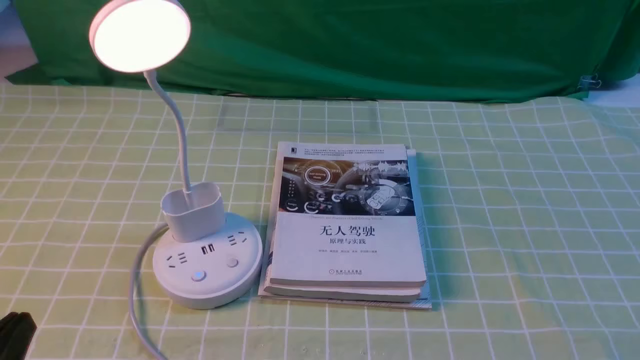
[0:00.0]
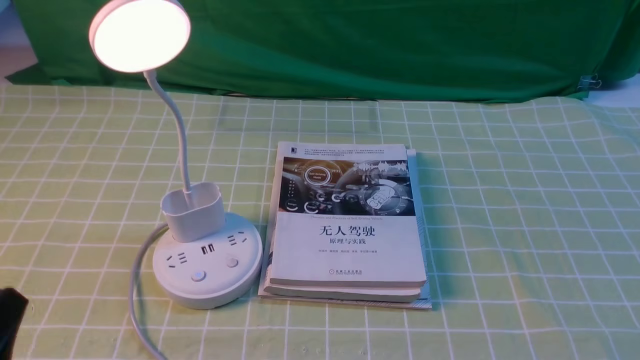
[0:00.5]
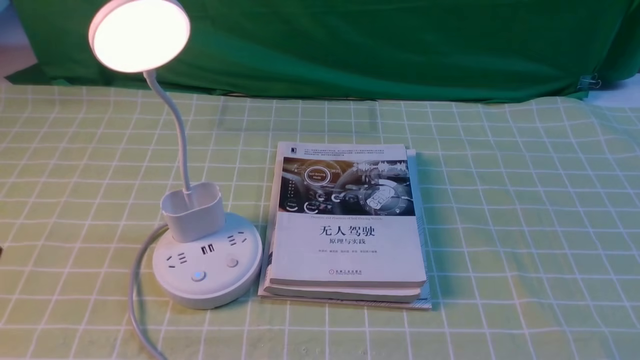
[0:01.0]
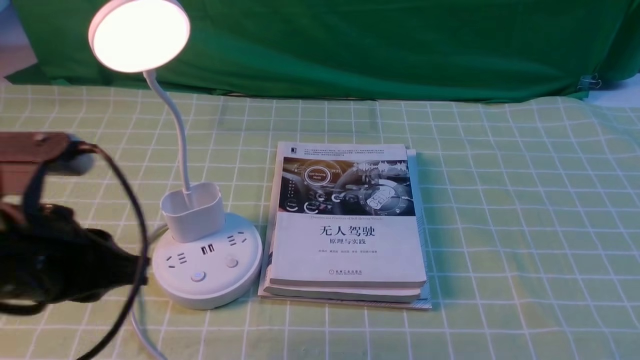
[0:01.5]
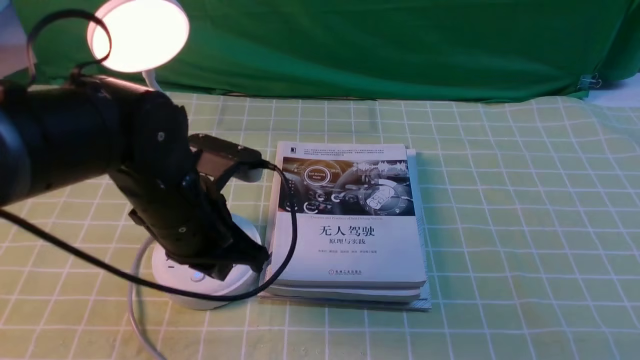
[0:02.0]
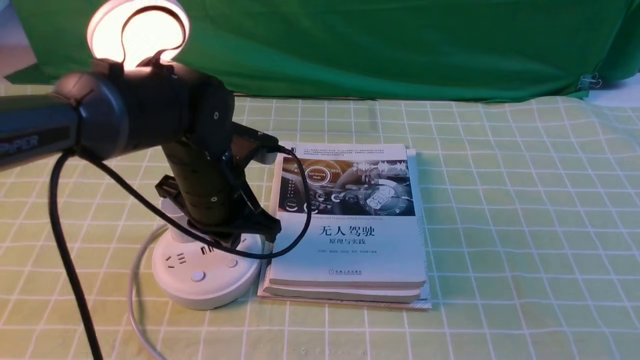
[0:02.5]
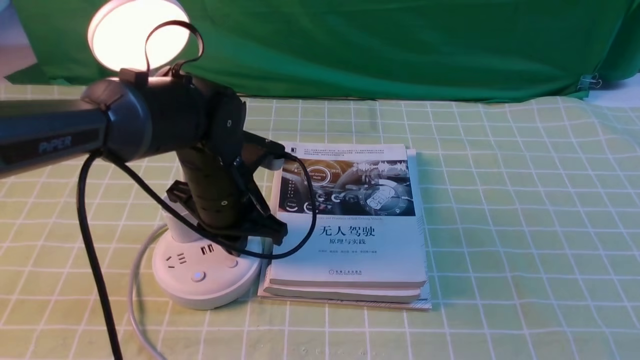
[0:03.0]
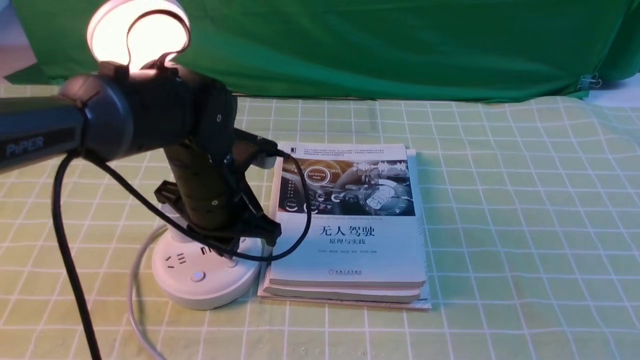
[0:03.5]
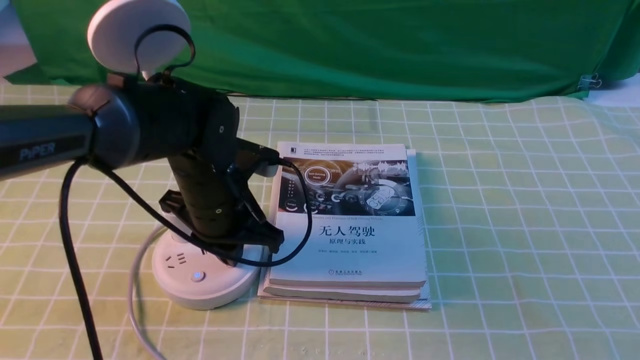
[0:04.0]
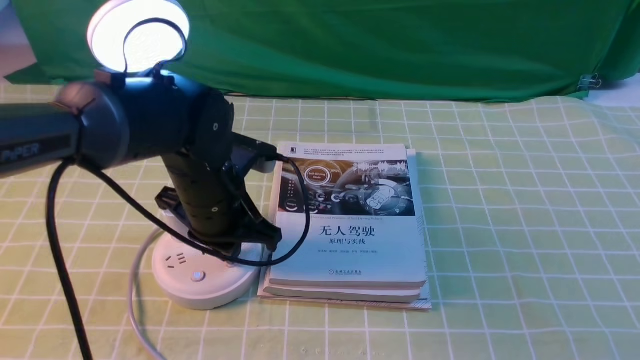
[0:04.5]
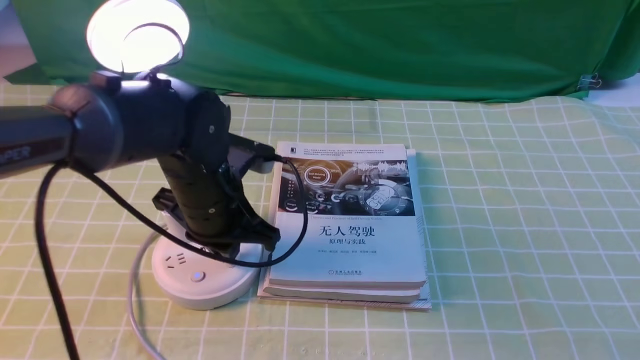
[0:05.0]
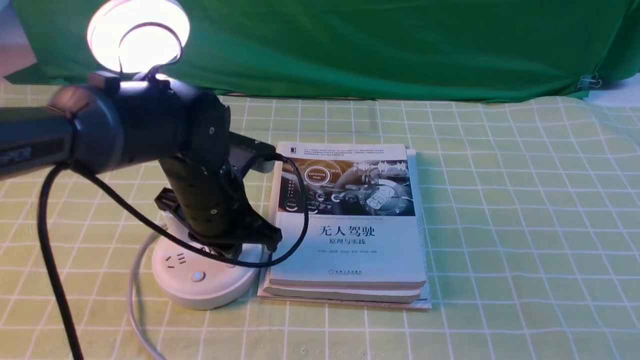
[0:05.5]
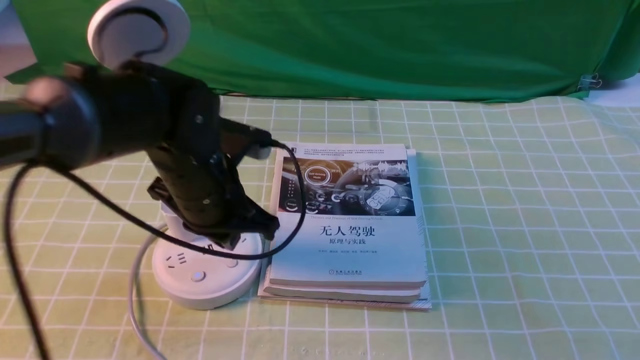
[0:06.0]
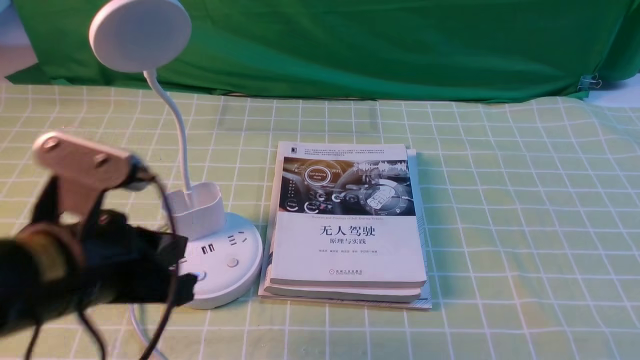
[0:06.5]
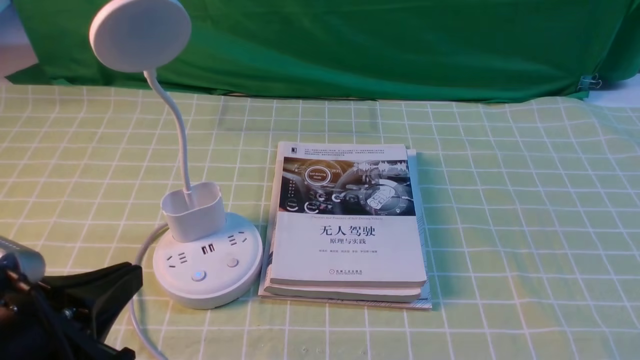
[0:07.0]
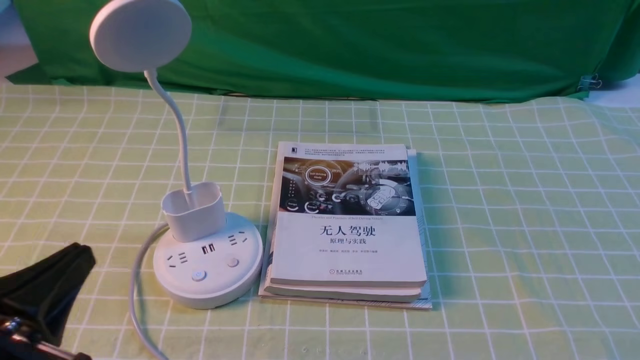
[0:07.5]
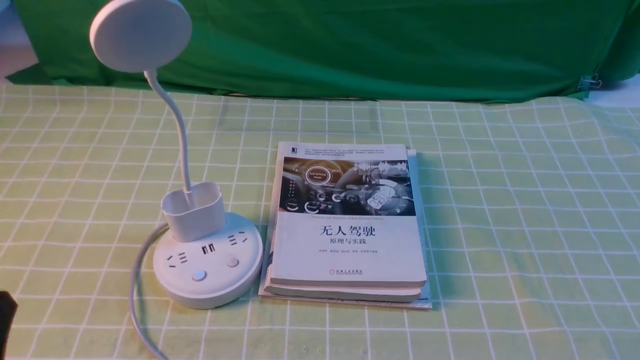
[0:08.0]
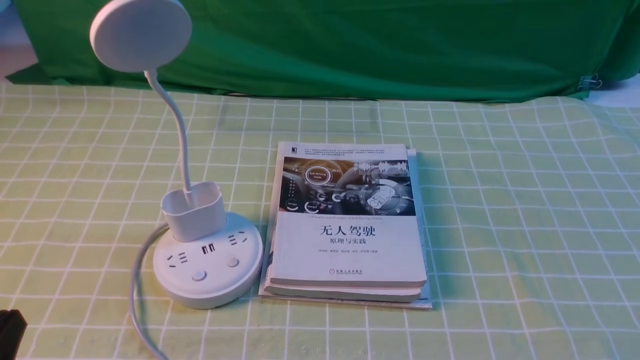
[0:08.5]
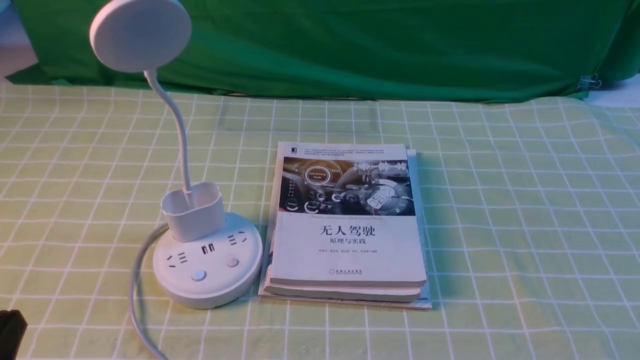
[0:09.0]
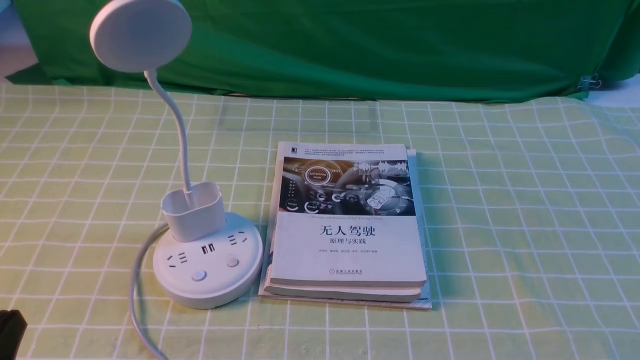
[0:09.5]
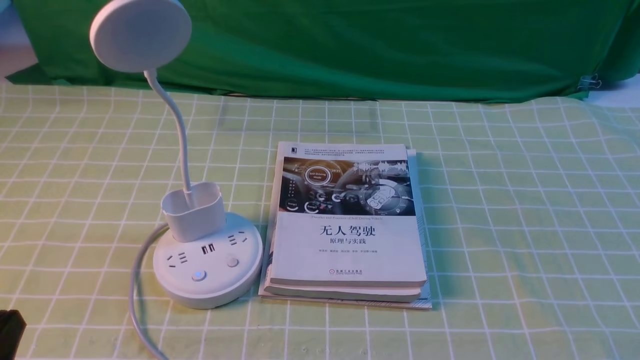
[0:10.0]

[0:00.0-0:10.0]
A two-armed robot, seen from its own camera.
Task of the whole recording: turn off the desk lamp on the green coffee tablecloth by hand.
Step, 0.0 to 6.0 s: use the left arm to press the button switch on the lamp holder.
2.0 to 4.0 s: The left gripper is displaced forward and downward by approximately 10 cm.
4.0 to 6.0 s: The grippers make only small movements.
6.0 to 8.0 s: The left gripper moves backward and to the left, approximately 30 cm, and closes.

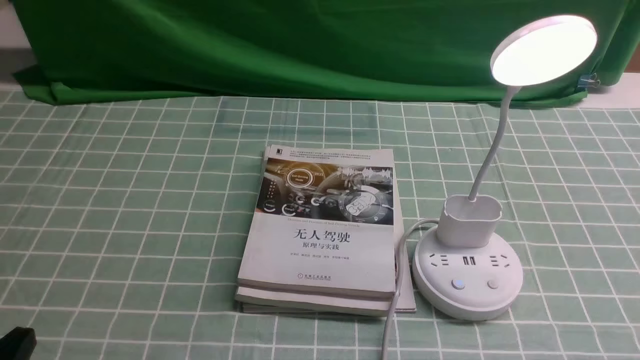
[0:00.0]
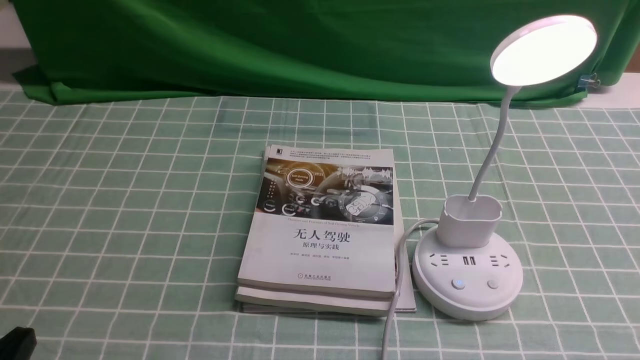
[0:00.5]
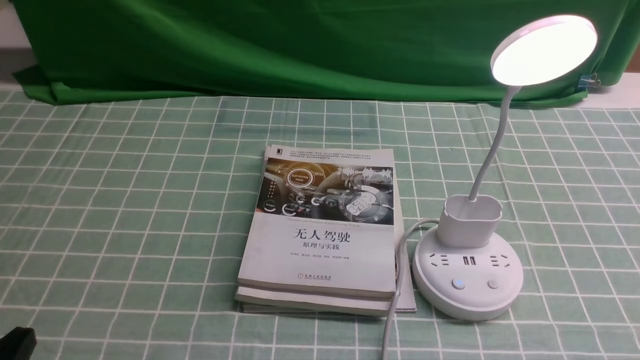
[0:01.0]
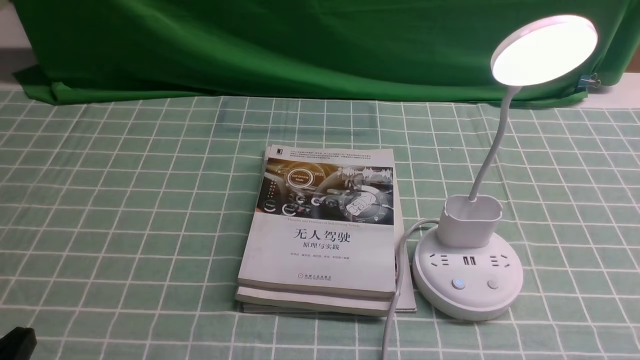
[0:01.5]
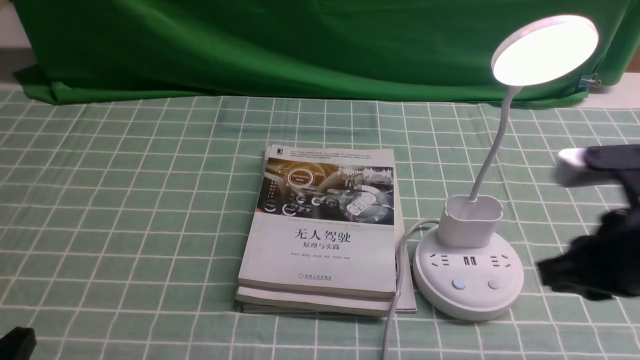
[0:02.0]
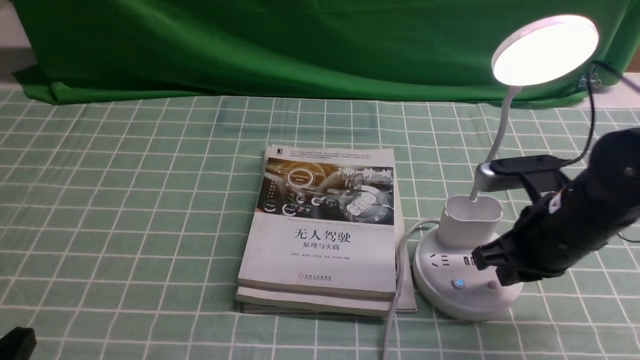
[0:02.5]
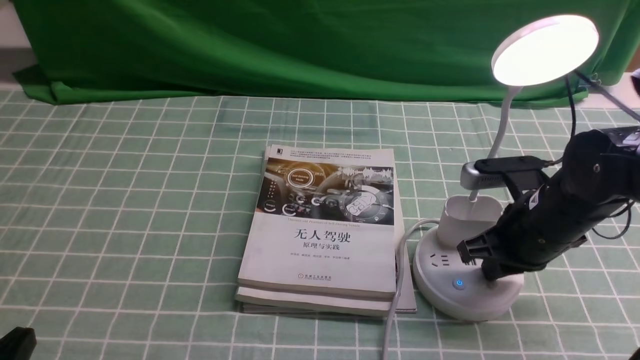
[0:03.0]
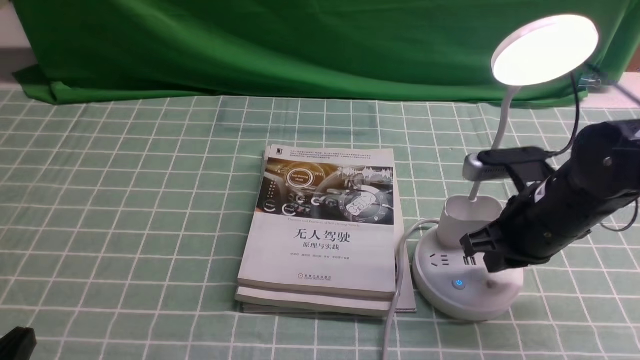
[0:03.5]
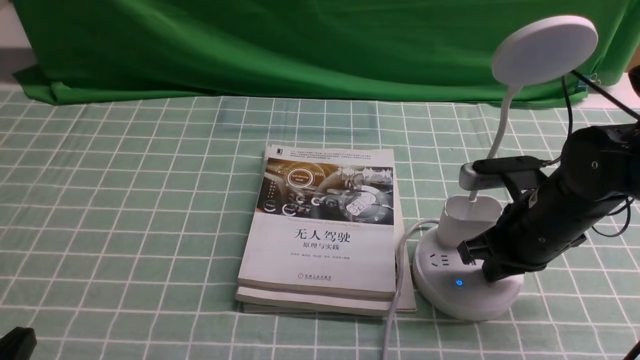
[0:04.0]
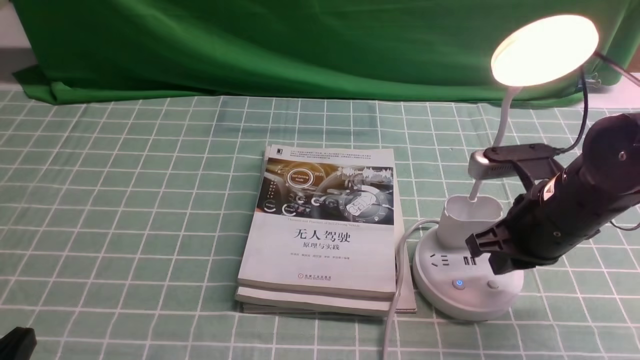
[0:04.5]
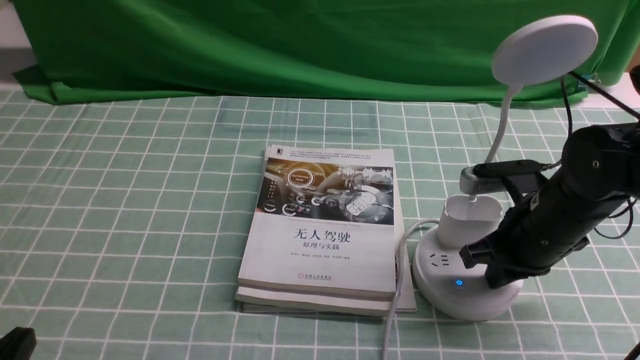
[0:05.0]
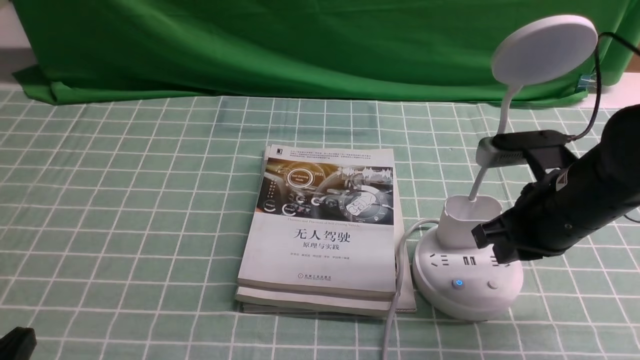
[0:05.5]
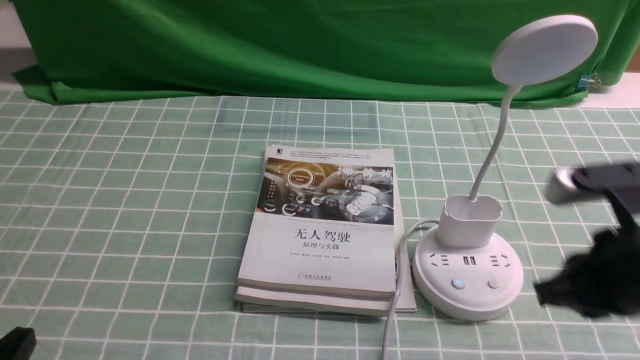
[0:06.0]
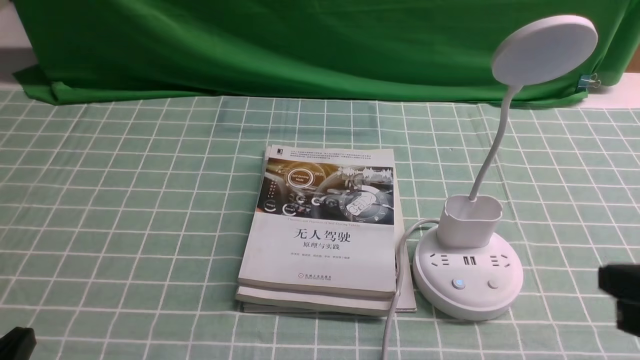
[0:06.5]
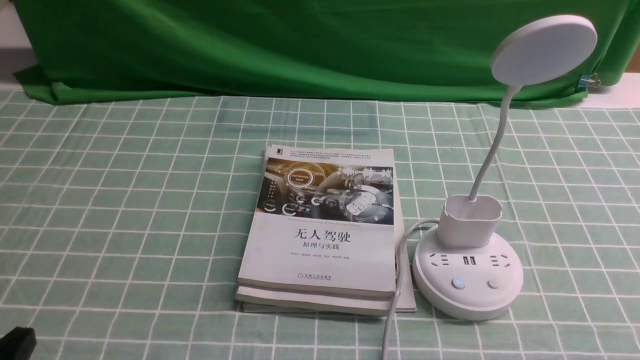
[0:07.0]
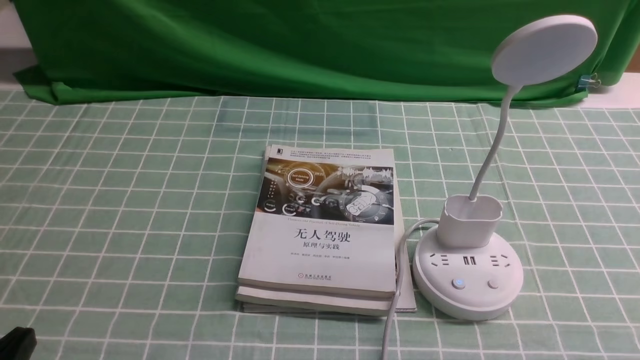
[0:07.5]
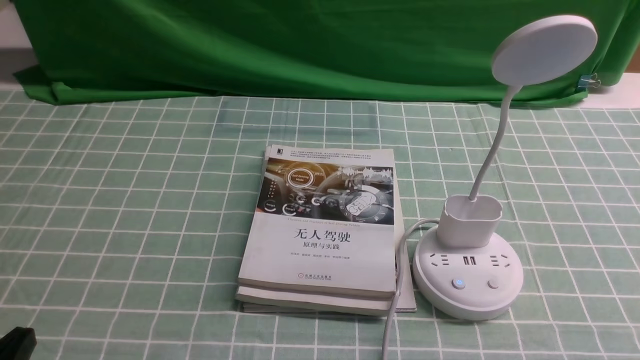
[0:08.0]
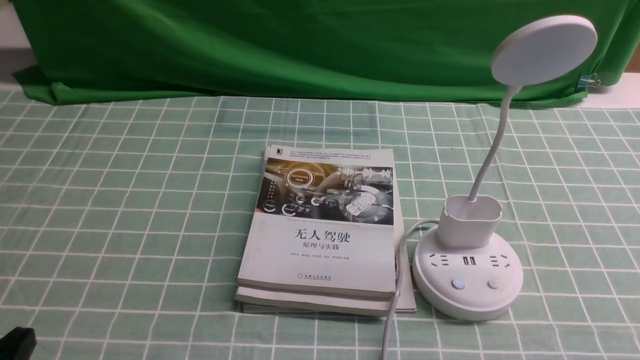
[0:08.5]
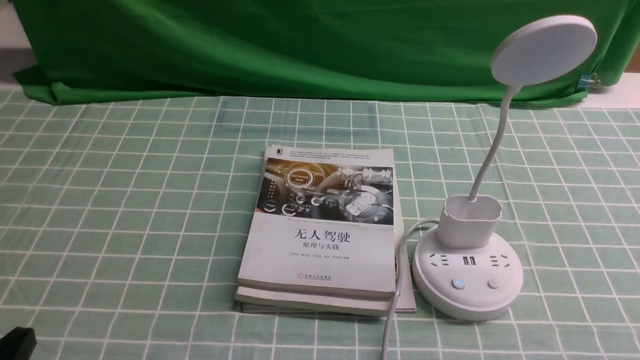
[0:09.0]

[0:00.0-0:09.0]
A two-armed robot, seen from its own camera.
Task of the whole recording: turn off the desk lamp on the blue coffee tablecloth by hand.
Step, 0.0 to 5.0 s: use the right arm to press the button switch on the lamp holder.
2.0 to 4.5 s: The right gripper is displaced forward and downward by some 15 cm.
4.5 to 7.0 s: The right gripper goes some 25 cm backward and to the right.

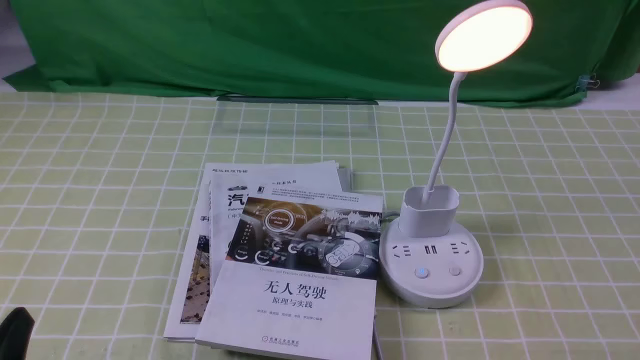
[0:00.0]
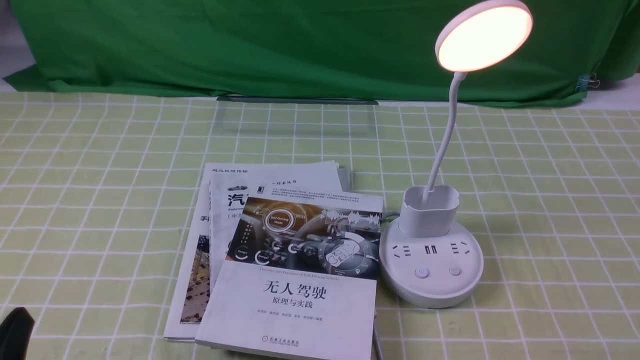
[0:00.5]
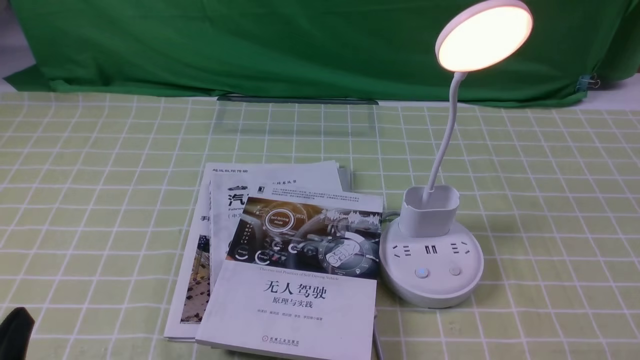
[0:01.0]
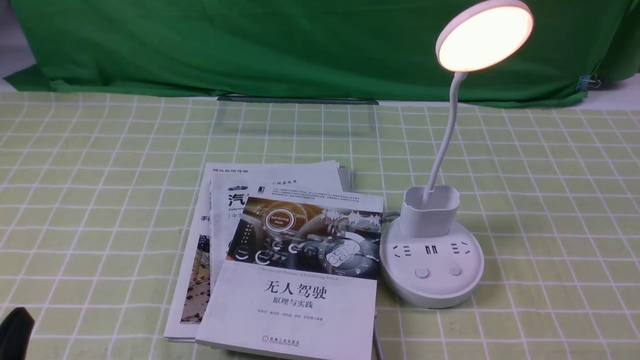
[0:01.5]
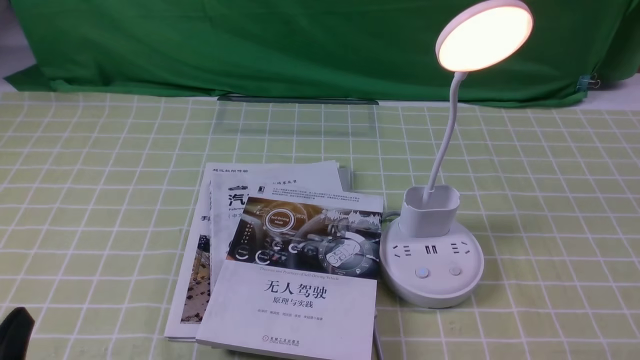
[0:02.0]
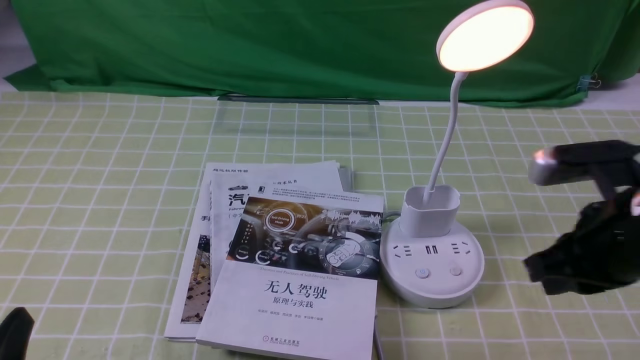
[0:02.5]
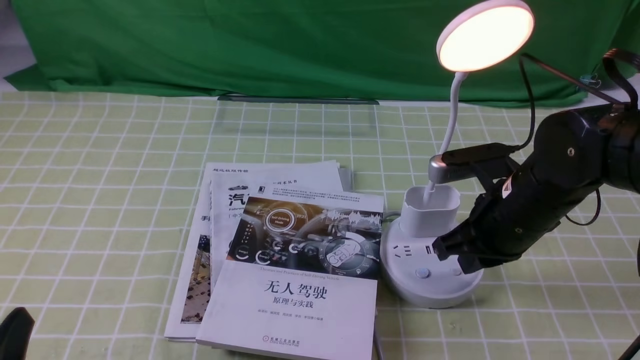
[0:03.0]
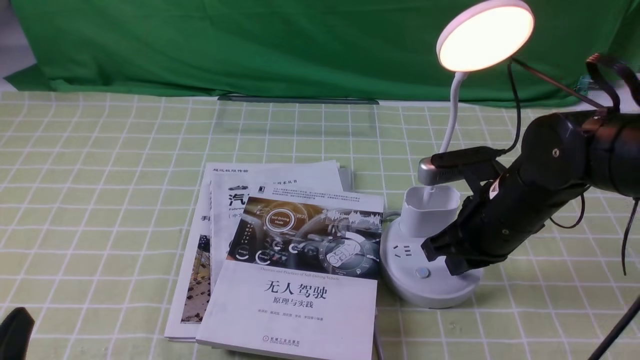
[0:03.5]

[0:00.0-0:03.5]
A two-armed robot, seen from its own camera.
Task of the whole recording: turn off the desk lamp on the green coffee tablecloth by hand.
2.0 to 3.5 s: The right gripper is displaced forward and to the left by approximately 30 cm.
